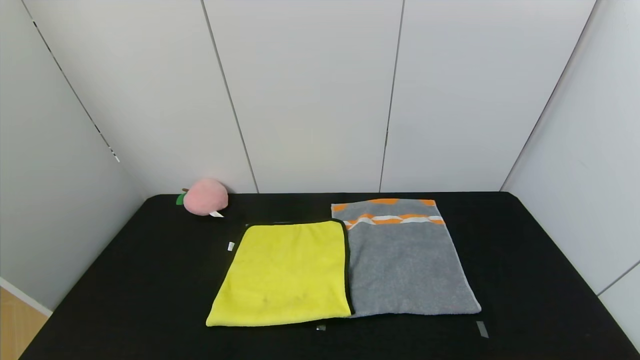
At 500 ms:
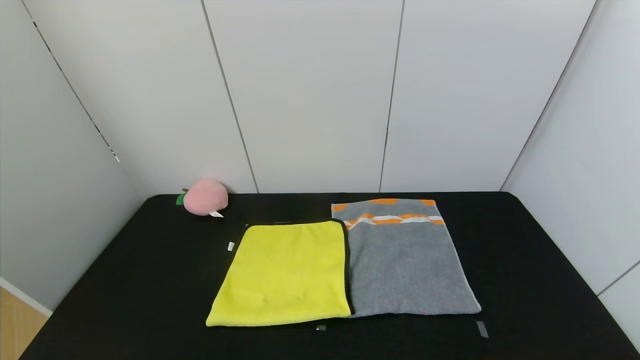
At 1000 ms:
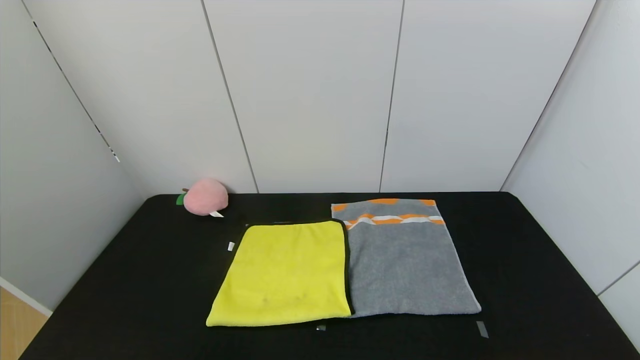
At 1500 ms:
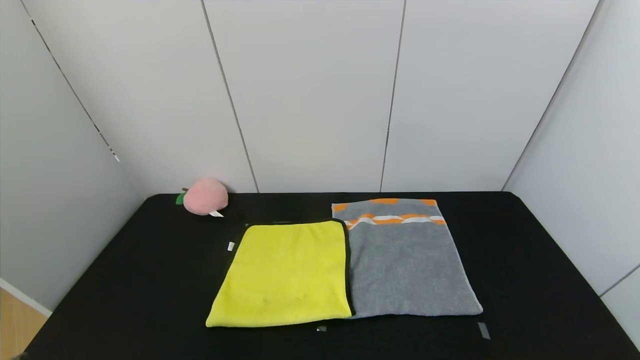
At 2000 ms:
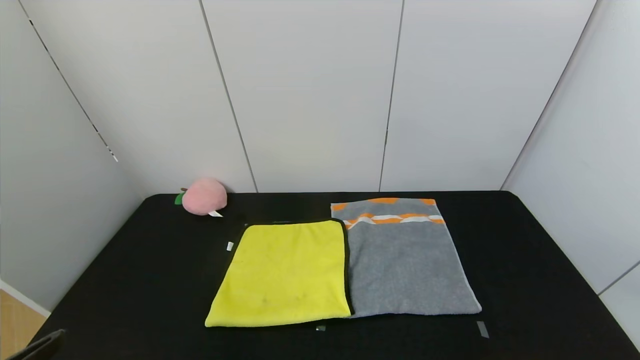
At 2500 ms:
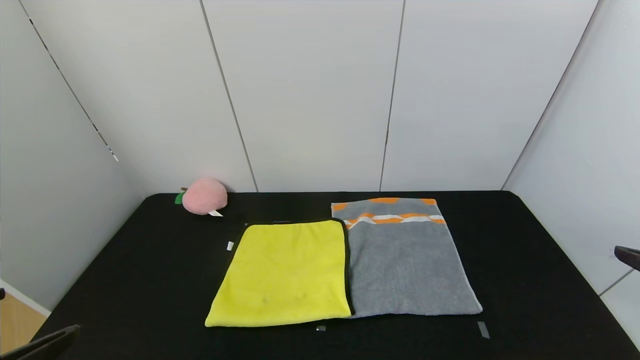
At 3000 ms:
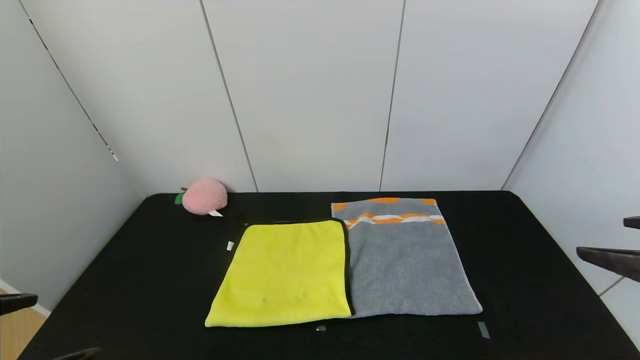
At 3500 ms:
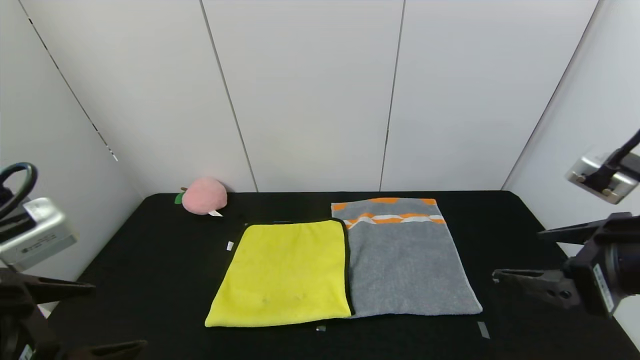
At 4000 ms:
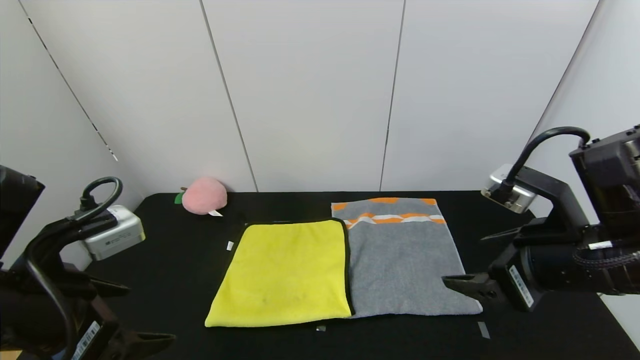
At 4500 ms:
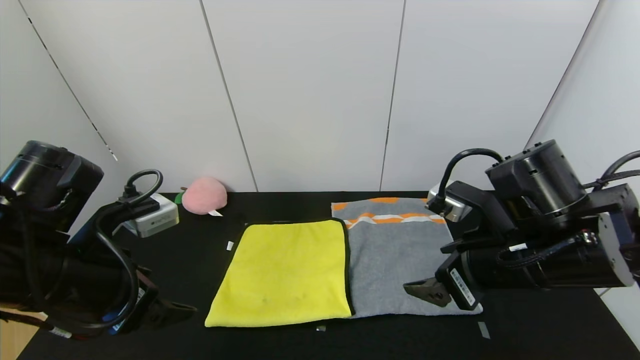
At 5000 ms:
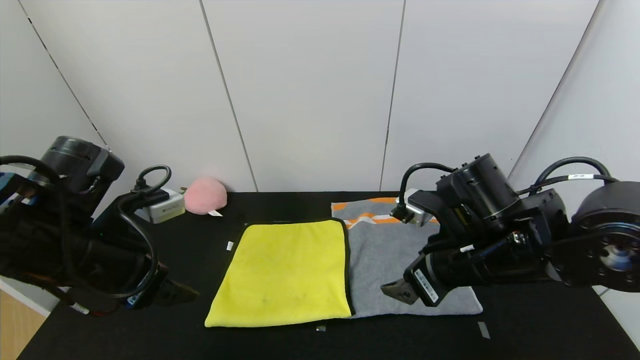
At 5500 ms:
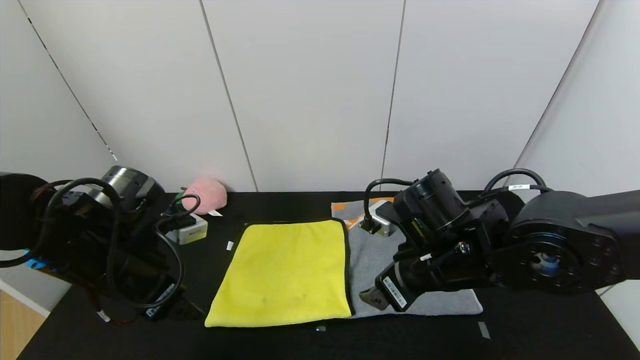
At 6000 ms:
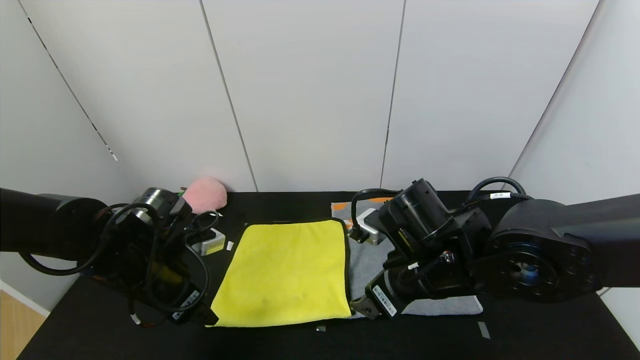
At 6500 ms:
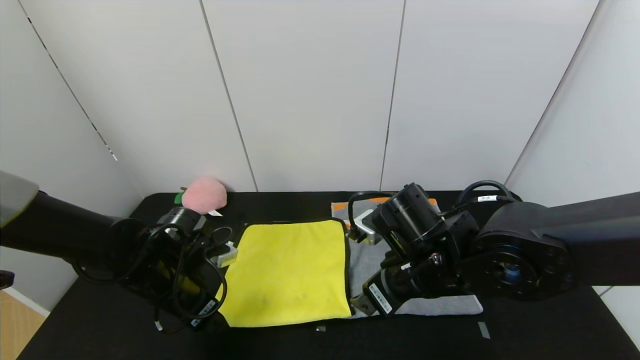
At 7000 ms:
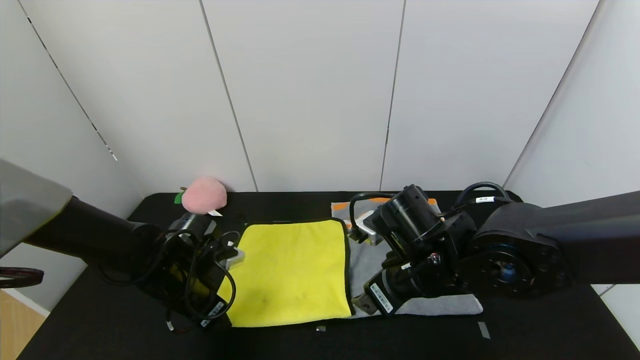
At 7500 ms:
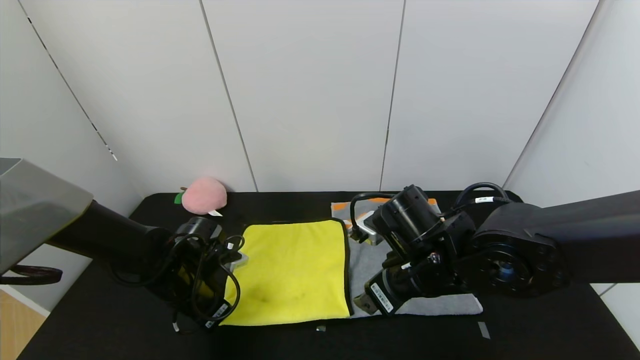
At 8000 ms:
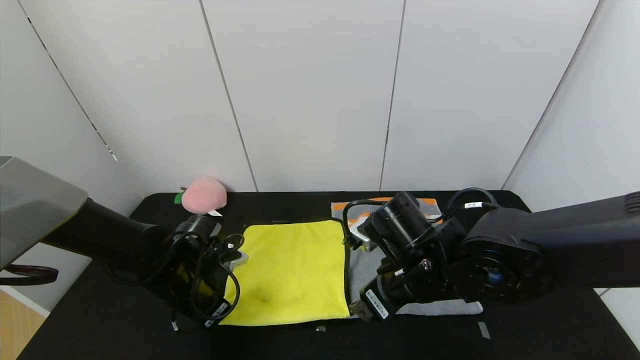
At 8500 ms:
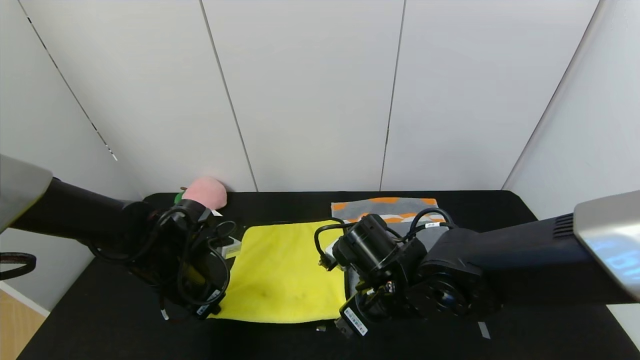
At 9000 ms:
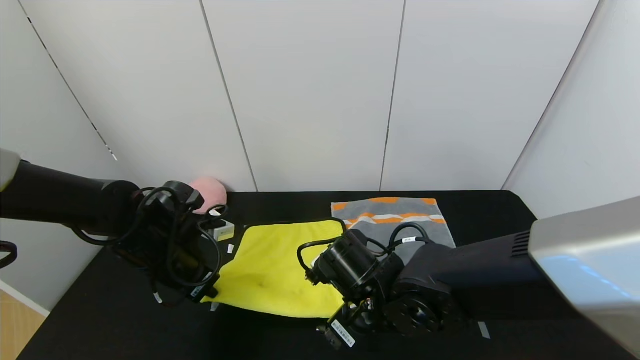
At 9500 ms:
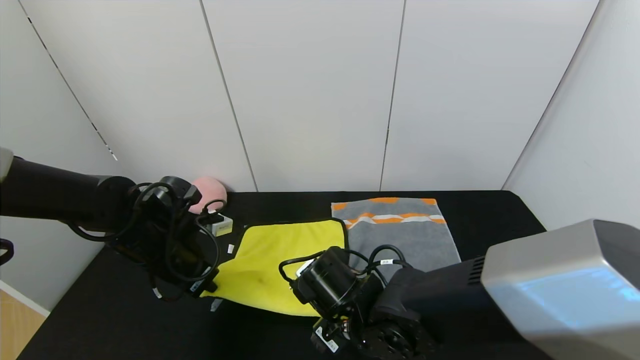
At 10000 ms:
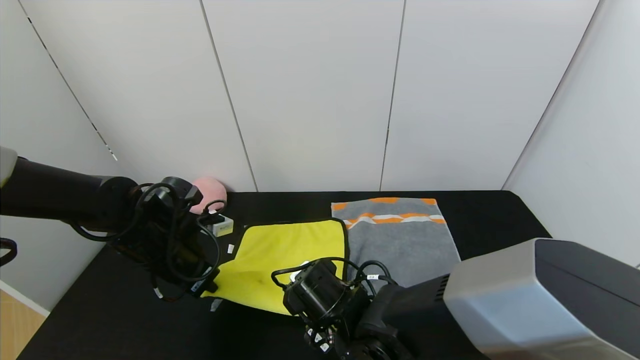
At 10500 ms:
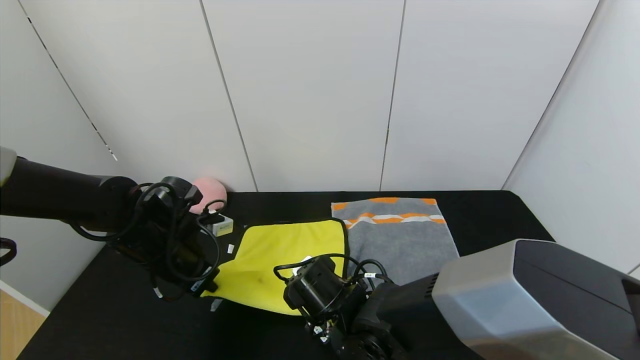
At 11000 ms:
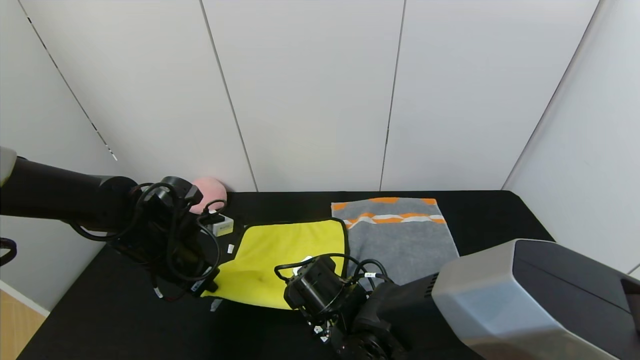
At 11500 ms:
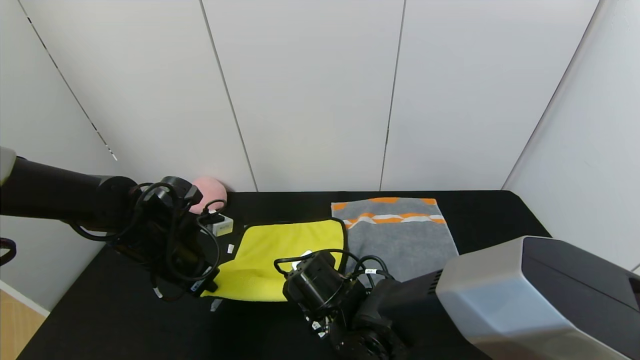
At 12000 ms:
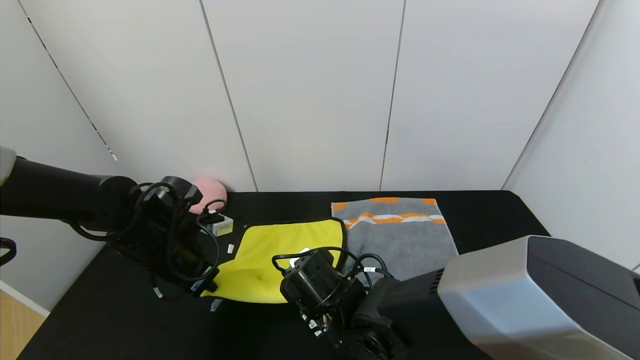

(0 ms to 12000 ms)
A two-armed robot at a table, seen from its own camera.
Task of the whole recording: Use the gripper to fold the yellow towel and grey towel in half twice,then put the yellow towel on the grey towel.
0 ms - 2000 ms: The right gripper goes about 20 cm upward and forward.
2000 ms - 4000 ms: The right gripper goes roughly 20 cm forward and to the left. The left gripper is displaced forward by approximately 15 cm.
4000 ms - 6000 ms: The left gripper goes about 15 cm forward and downward. Meanwhile the right gripper travels to the left, downward and forward by roughly 15 cm.
6000 ms - 8000 ms: The left gripper is displaced downward by approximately 5 cm, and closes up.
8000 ms - 10000 ms: The left gripper is displaced upward by about 5 cm. Meanwhile the right gripper moves to the left and downward, about 15 cm.
10000 ms - 12000 ms: The right gripper closes its fingers.

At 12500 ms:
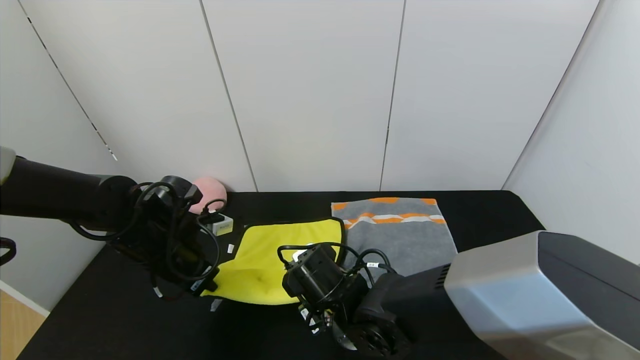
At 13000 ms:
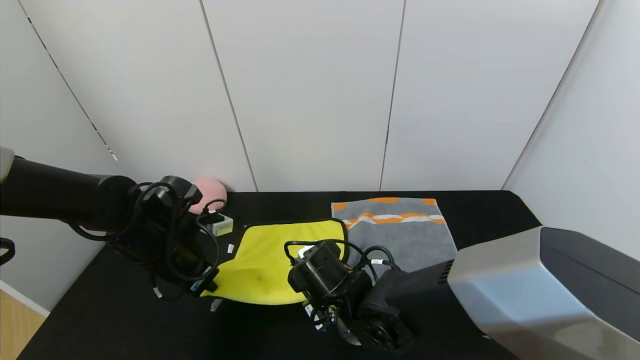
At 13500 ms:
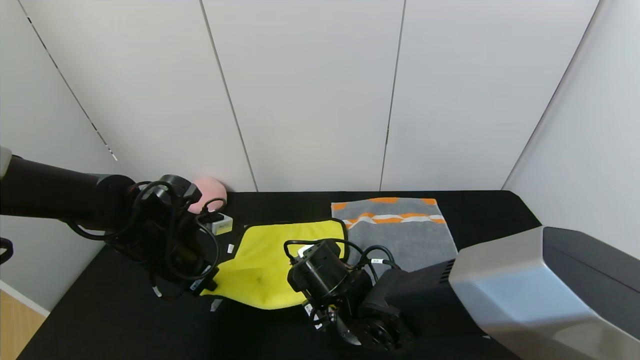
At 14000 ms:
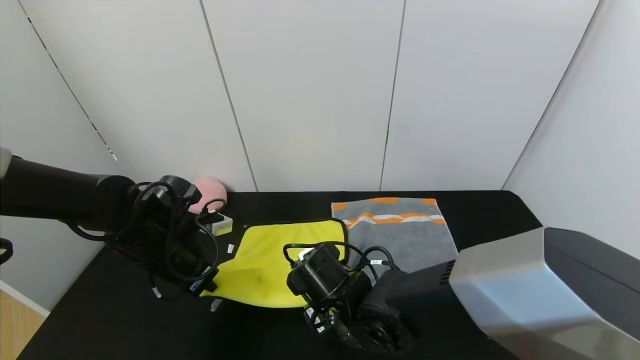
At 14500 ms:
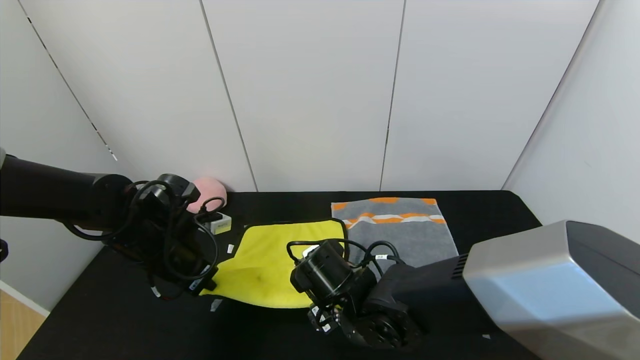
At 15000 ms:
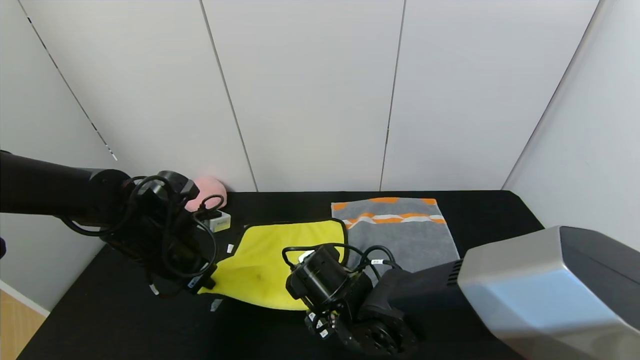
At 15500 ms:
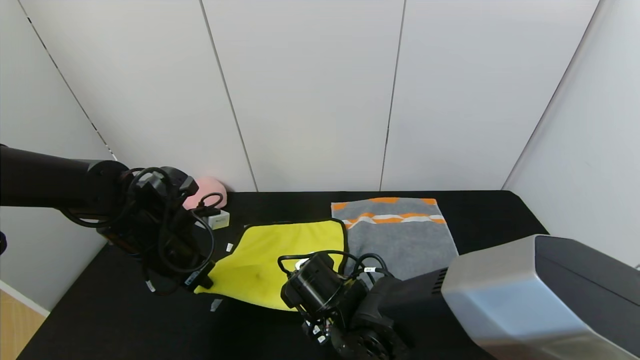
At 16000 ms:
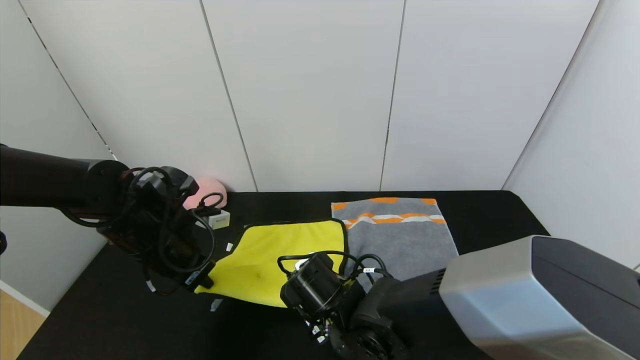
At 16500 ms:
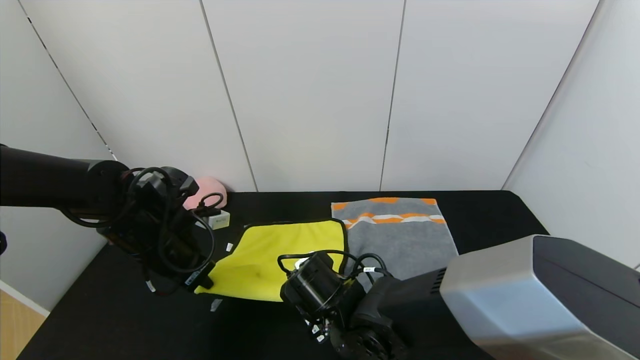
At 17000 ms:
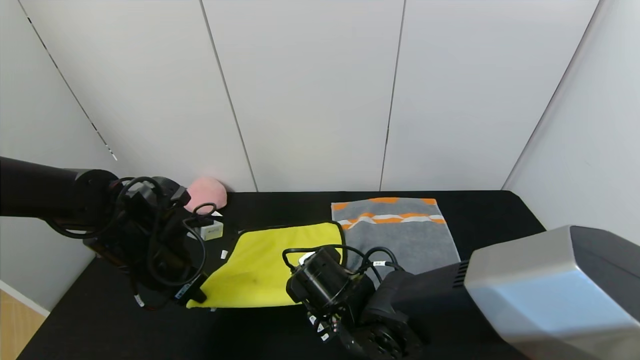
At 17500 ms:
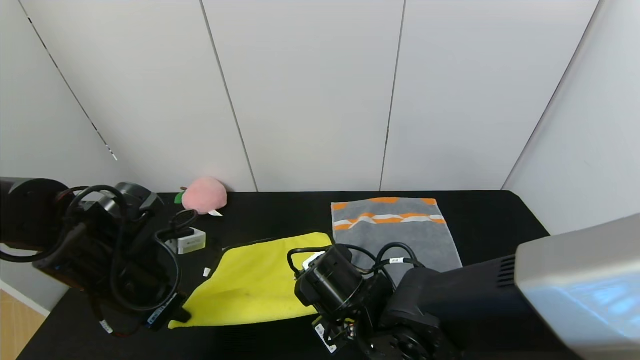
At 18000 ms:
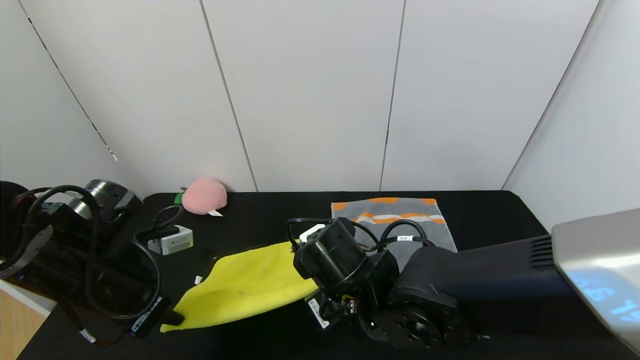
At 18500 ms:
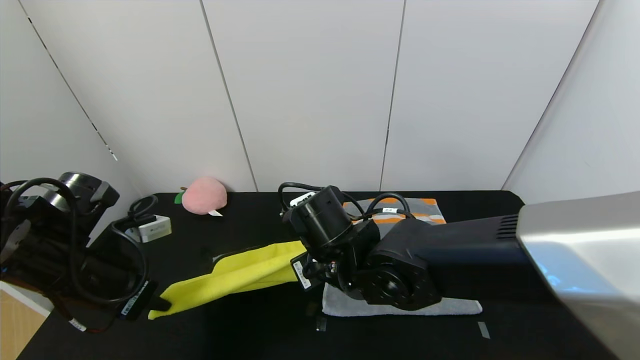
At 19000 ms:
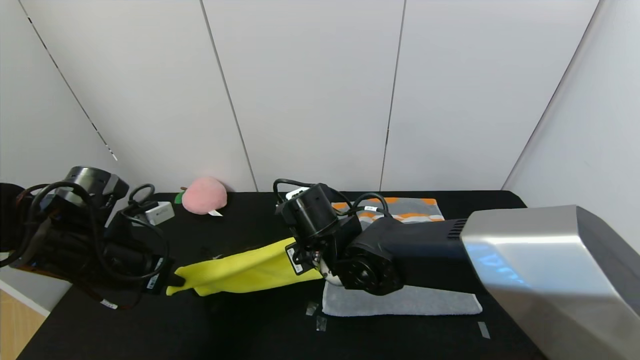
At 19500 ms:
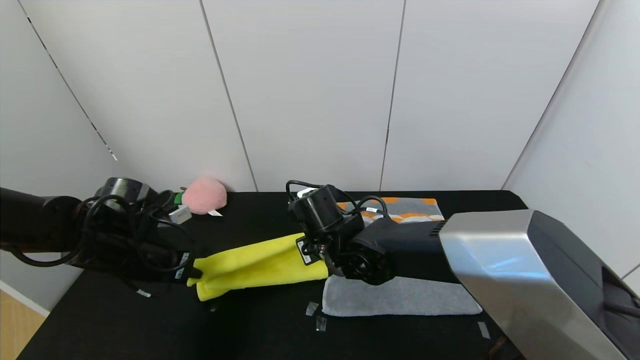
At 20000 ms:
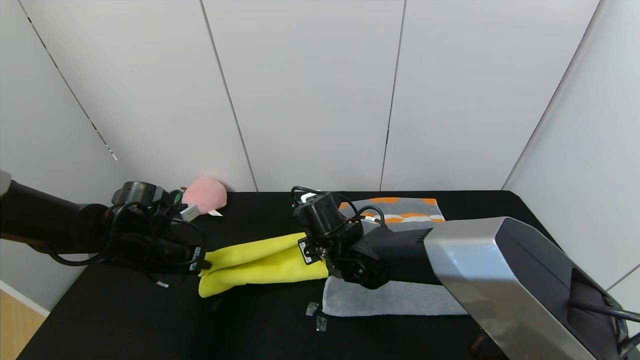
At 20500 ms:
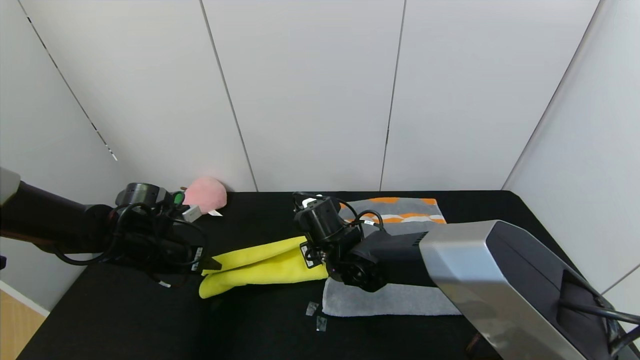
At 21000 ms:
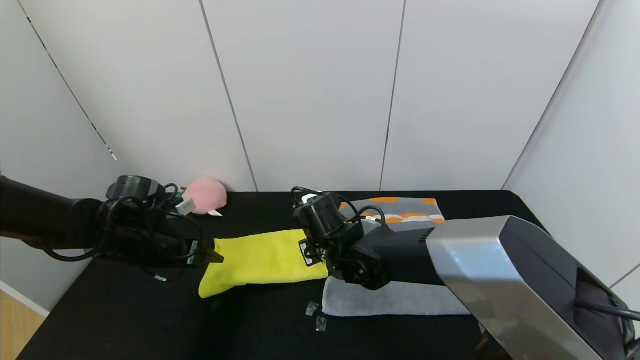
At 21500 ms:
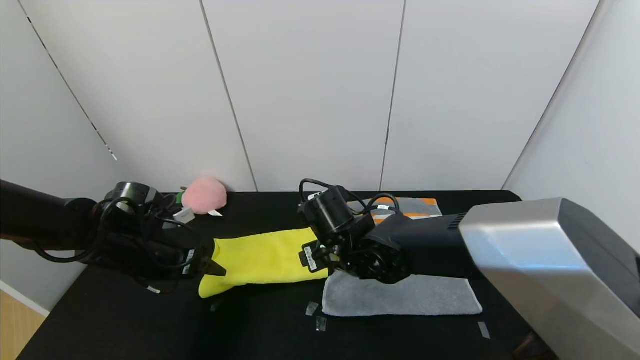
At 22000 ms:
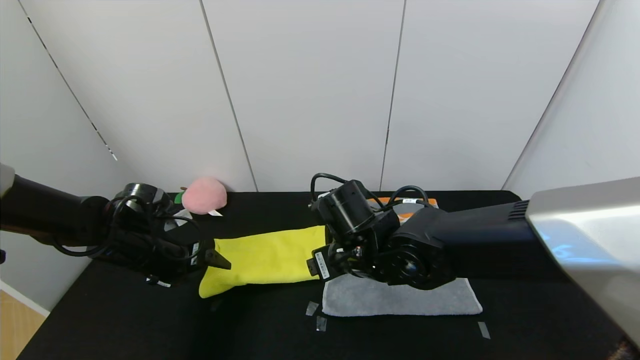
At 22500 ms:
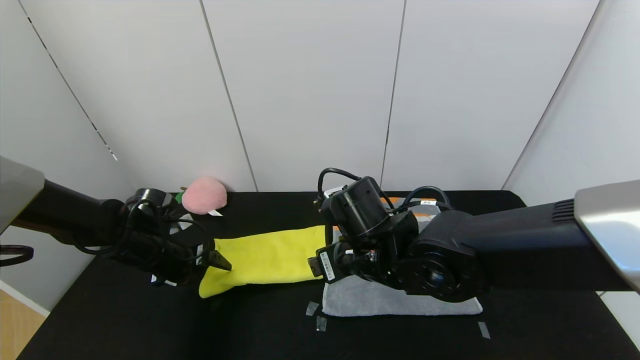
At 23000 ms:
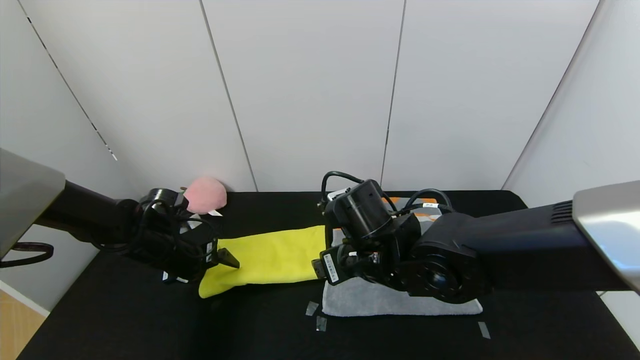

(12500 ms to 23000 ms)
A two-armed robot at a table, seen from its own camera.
Task of the whole recording: Use the gripper to fold the yellow towel and grey towel in half twice,then put the yellow towel on the grey towel.
Step, 12500 ms - 20500 ms: Fold the yellow towel upwards with the left gripper.
12500 ms - 14500 ms: The right gripper opens.
14500 ms - 16500 ms: The right gripper closes.
16500 ms - 19000 ms: The right gripper goes some 10 cm upward and forward, while the left gripper heads backward, covering some 5 cm.
19000 ms - 21000 ms: The right gripper moves roughly 5 cm, and opens up. Meanwhile the left gripper goes about 10 cm forward and downward, and opens up.
21000 ms - 23000 ms: The right gripper is displaced backward, upward and to the right by about 10 cm.
